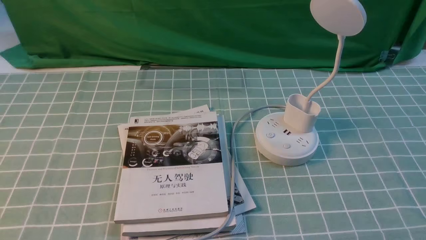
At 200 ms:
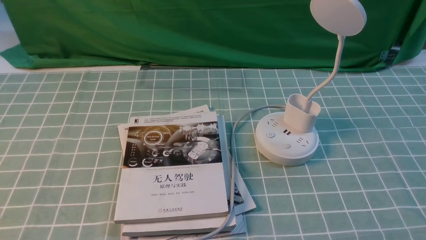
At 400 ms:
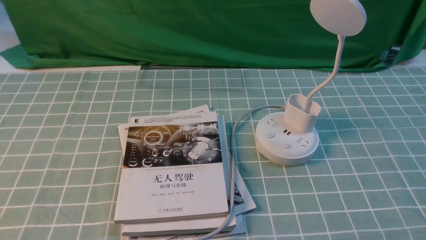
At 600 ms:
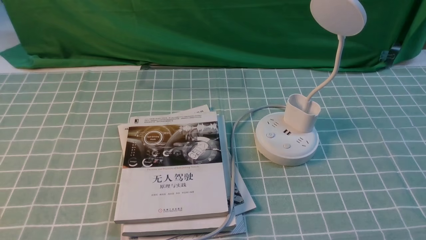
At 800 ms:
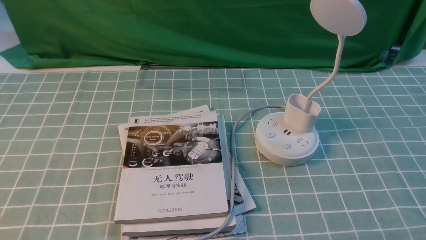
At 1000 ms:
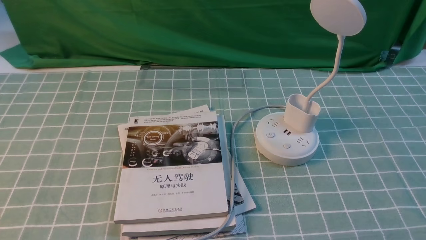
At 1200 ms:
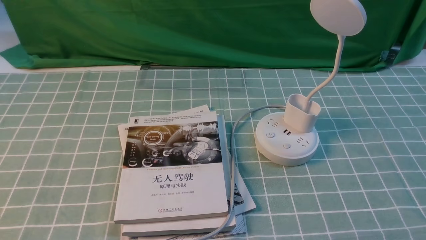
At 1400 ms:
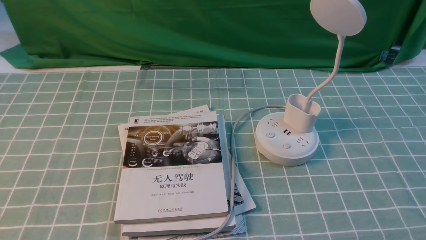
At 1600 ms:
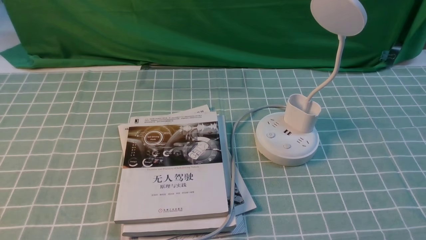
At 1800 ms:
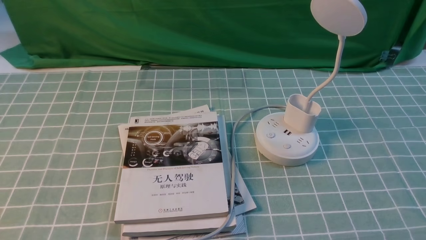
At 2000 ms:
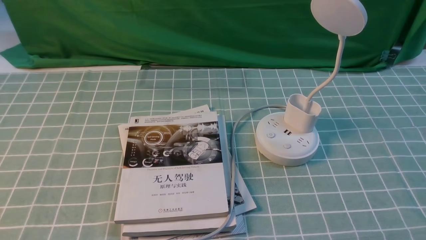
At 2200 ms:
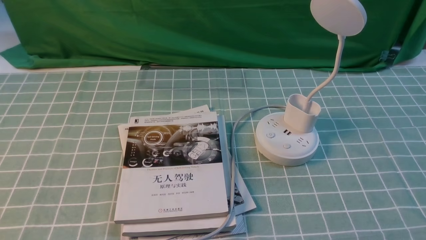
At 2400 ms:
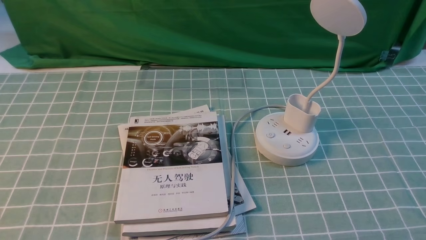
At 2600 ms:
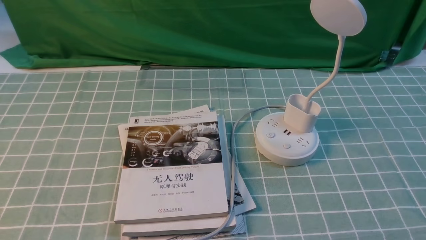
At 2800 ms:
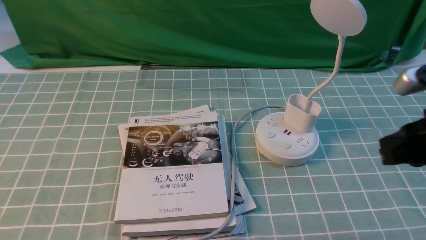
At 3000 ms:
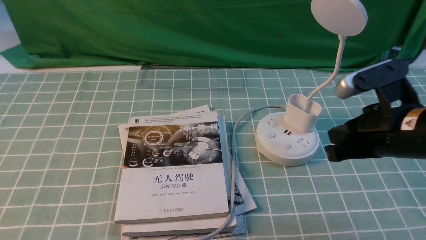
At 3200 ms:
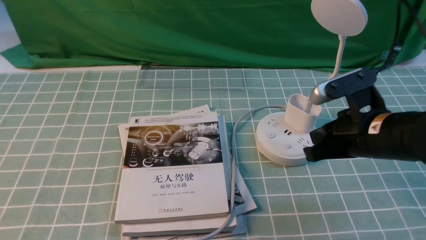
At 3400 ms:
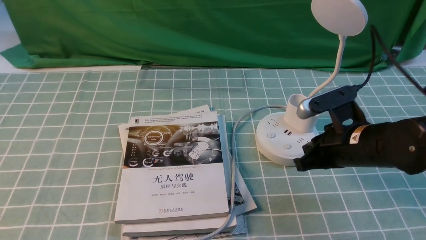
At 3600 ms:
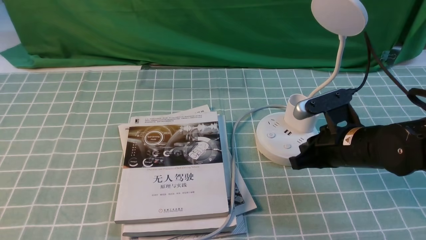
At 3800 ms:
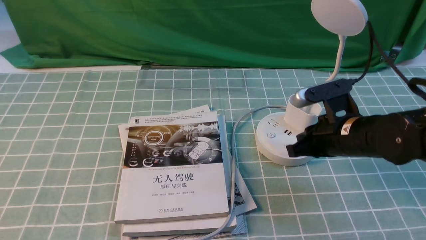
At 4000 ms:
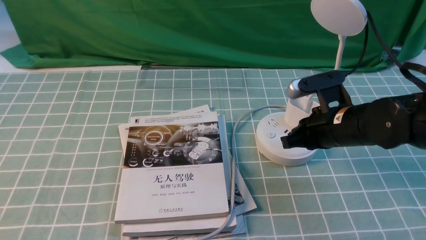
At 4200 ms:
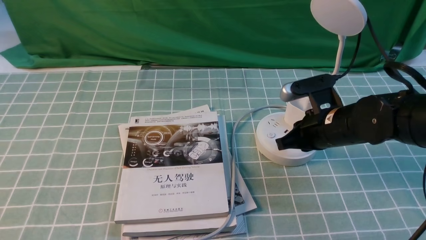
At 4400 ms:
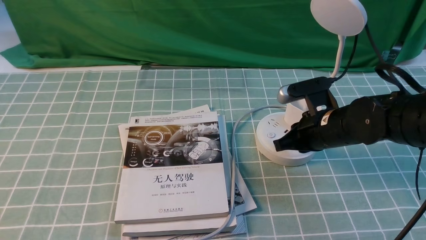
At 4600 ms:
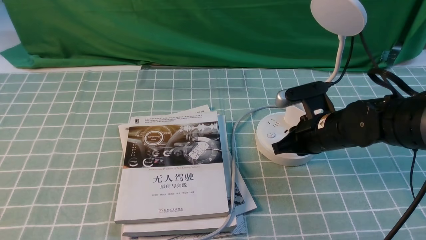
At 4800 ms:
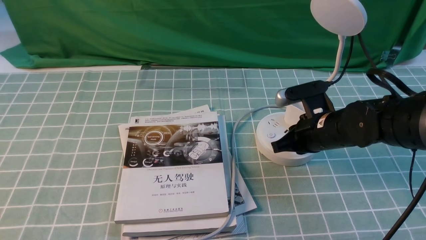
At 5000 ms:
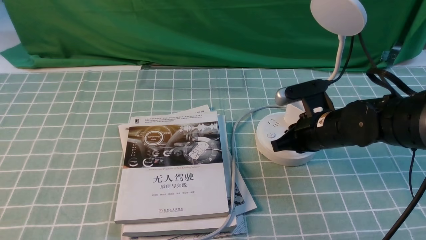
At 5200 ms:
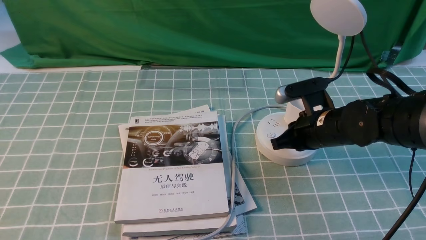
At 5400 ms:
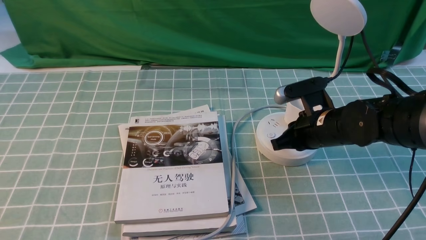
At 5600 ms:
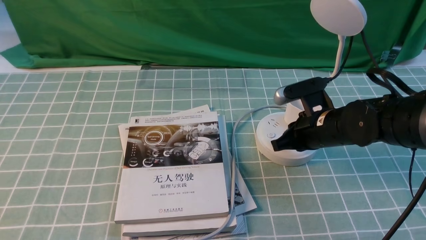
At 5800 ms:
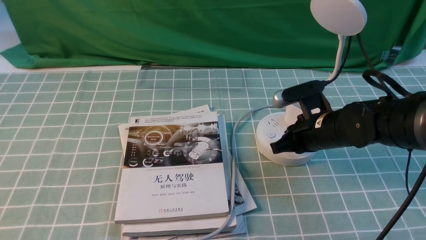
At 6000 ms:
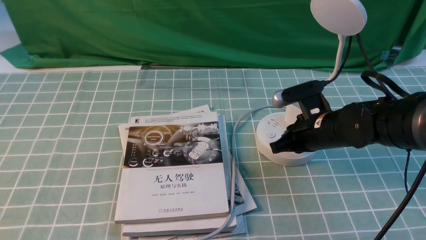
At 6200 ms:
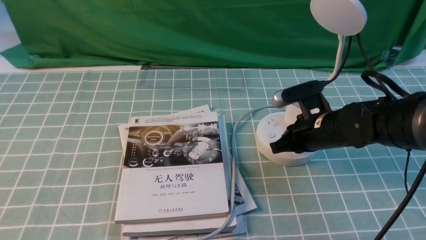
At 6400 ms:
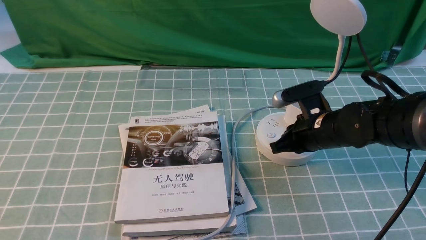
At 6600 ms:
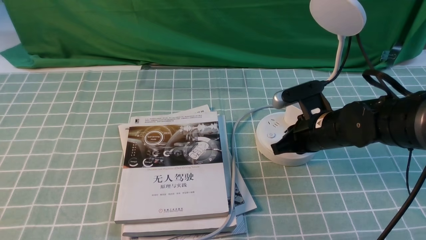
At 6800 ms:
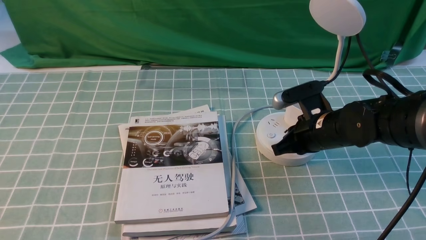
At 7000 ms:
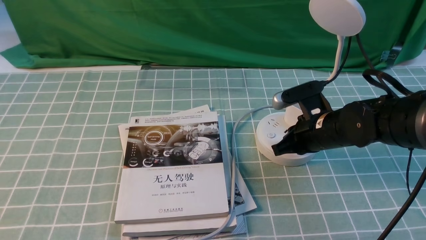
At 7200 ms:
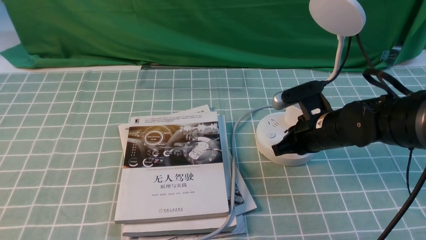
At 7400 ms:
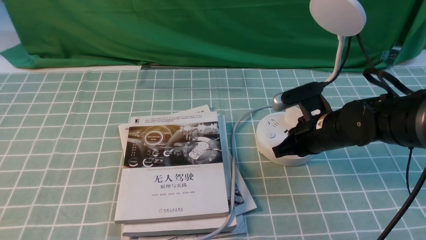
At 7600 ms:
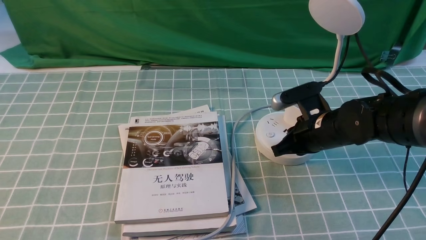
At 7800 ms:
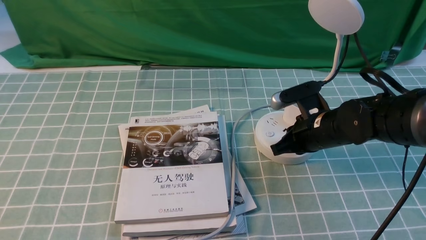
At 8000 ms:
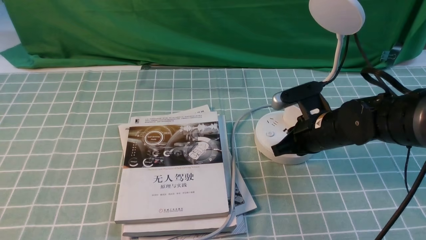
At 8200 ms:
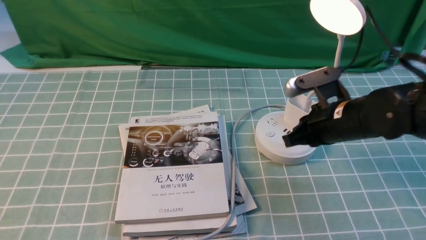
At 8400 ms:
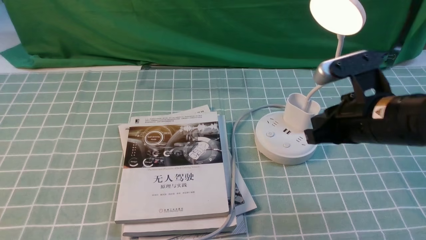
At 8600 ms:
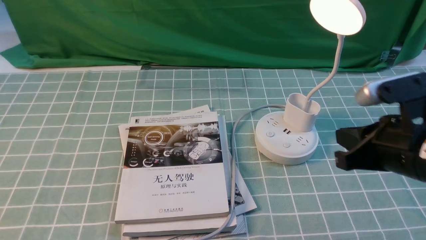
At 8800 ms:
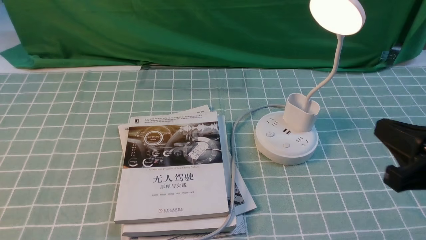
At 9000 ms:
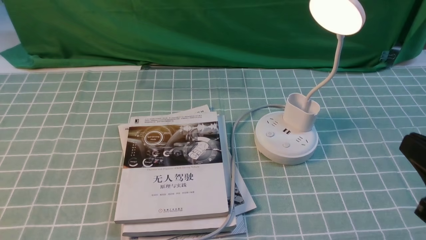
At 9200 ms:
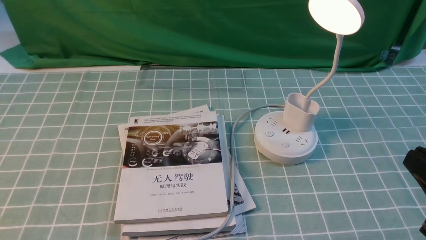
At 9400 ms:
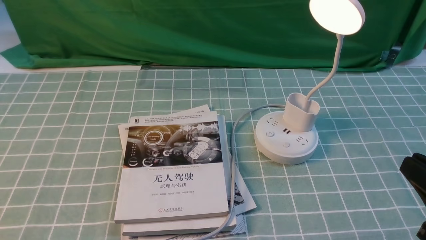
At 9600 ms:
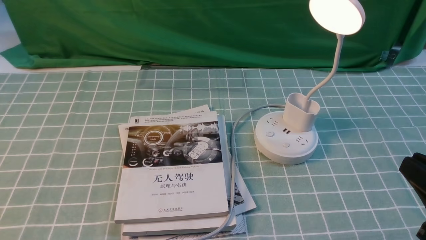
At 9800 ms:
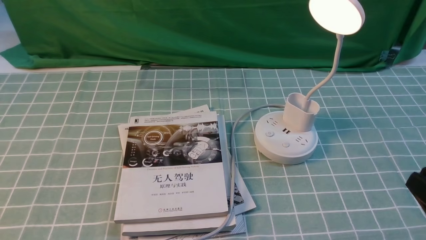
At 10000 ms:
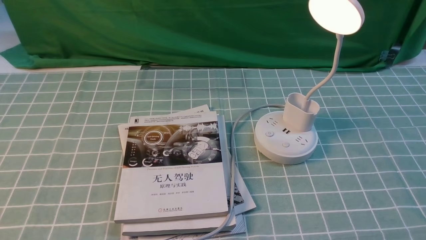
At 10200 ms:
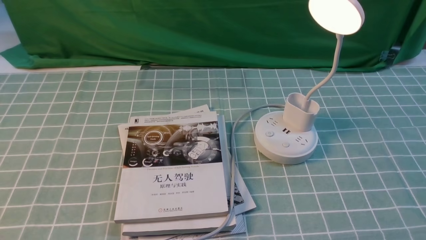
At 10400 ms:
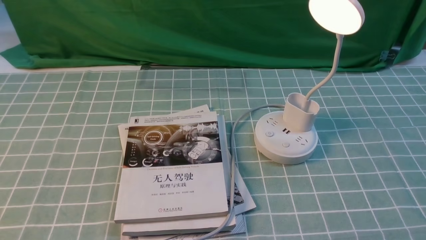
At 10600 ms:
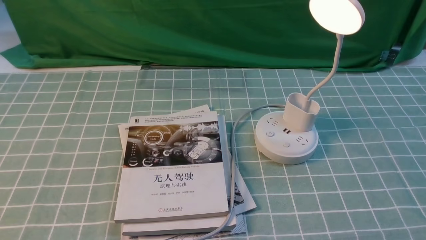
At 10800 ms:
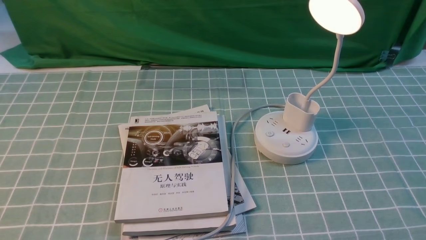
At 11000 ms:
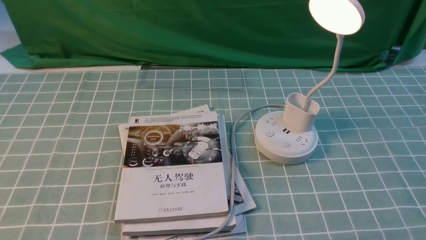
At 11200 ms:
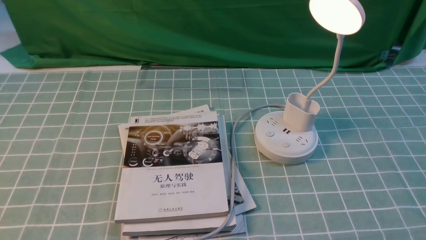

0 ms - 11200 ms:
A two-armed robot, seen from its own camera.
Step, 0 ms - 8000 ms: use the right arm to press the button switch on the lamp holder.
1600 ms - 3200 ms: The right gripper shifts about 20 cm forward and to the left, and closes.
3200 ms - 4800 ms: The right gripper goes about 10 cm downward and forward.
4800 ms - 6400 ms: Both grippers stay about where they are.
6400 ms - 8000 ms: The two grippers keep their place.
8000 ms - 9600 ms: The right gripper goes roughly 30 cm backward, to the right and upward, and opens up.
9600 ms - 11200 ms: The right gripper is displaced downward by roughly 10 cm, and closes up.

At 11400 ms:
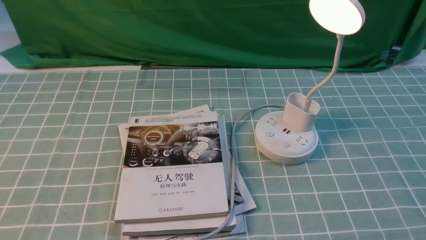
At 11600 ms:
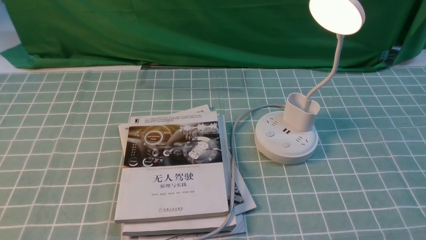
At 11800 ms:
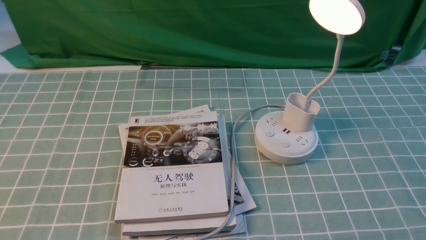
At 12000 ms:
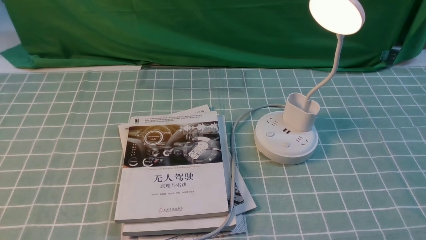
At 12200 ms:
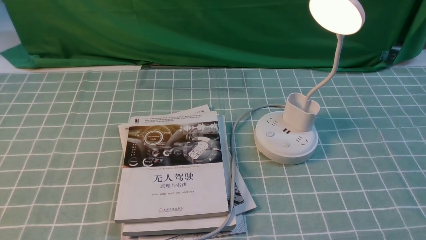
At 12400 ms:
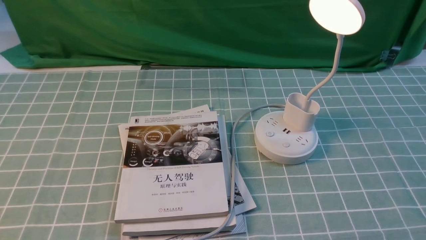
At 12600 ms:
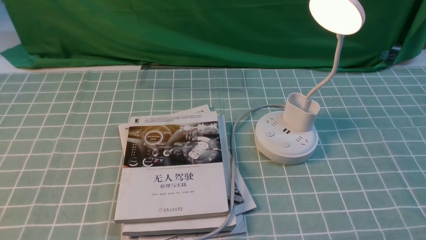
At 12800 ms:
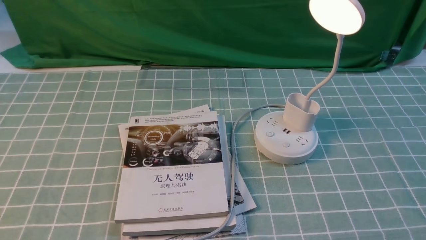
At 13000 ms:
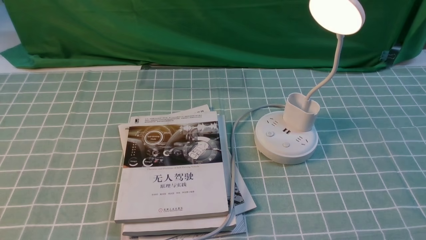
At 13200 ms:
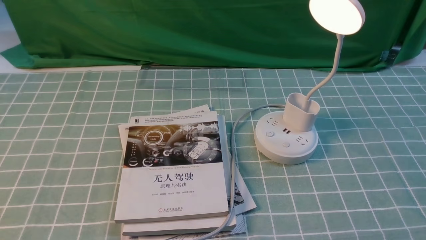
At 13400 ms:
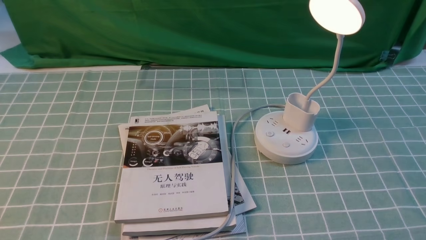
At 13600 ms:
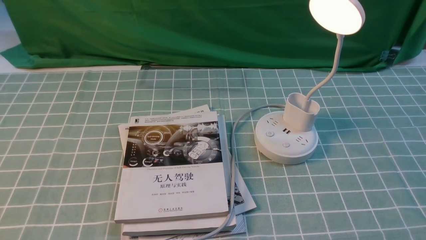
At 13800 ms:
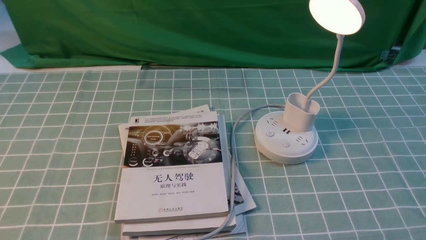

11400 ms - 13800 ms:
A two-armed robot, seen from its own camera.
12600 ms - 13800 ms: Both grippers stay put.
